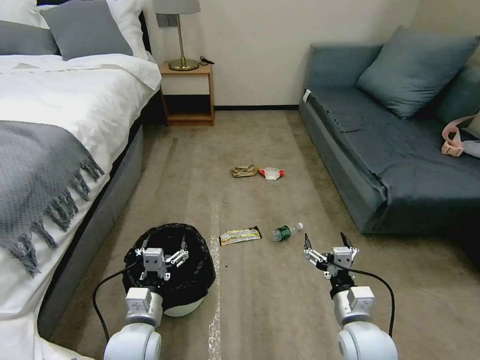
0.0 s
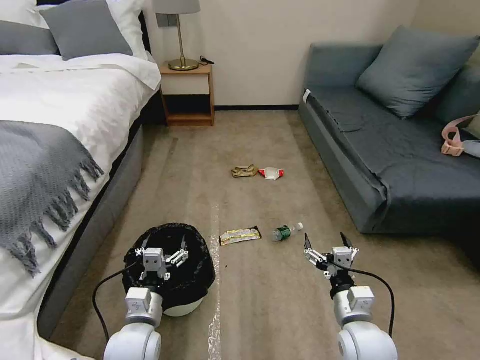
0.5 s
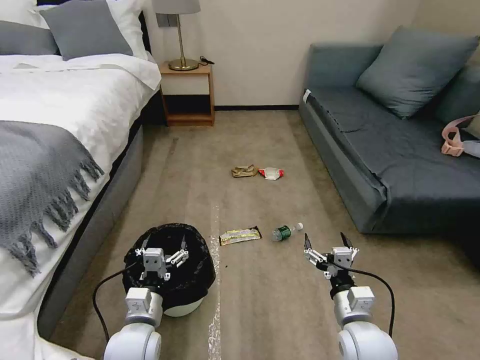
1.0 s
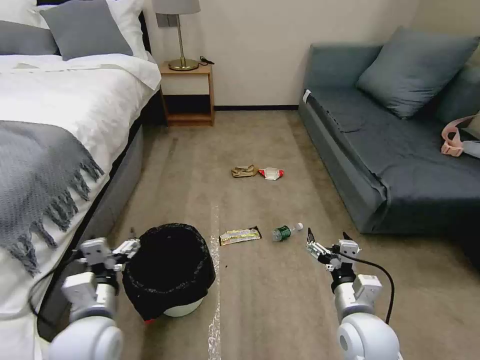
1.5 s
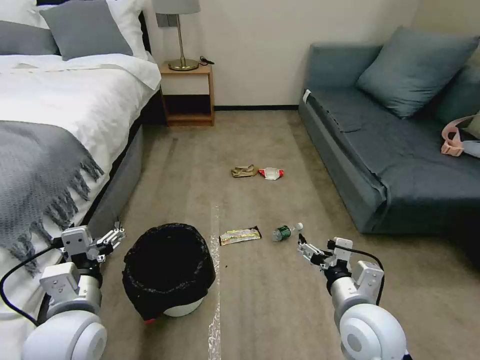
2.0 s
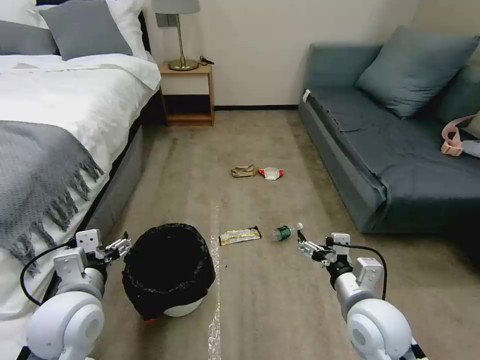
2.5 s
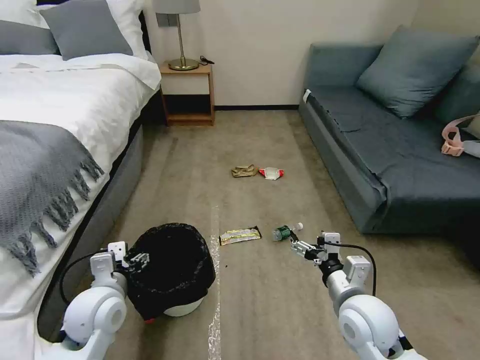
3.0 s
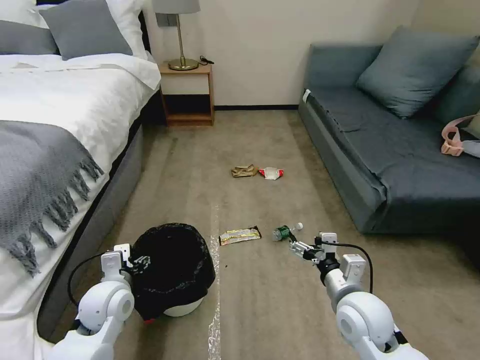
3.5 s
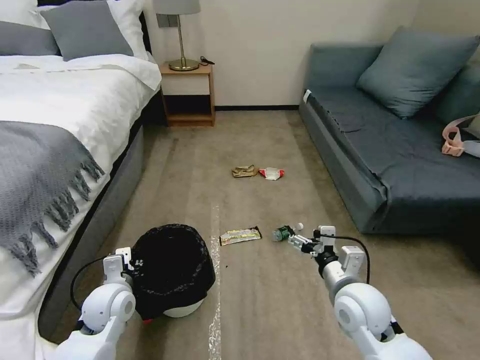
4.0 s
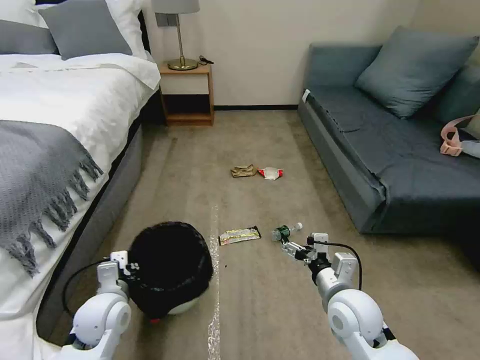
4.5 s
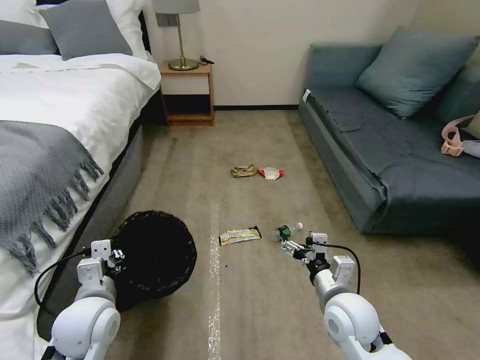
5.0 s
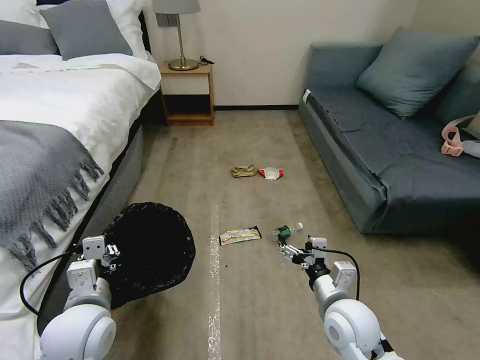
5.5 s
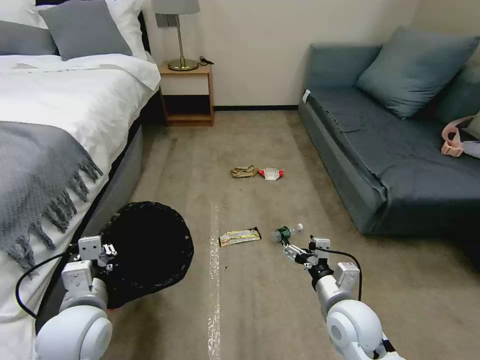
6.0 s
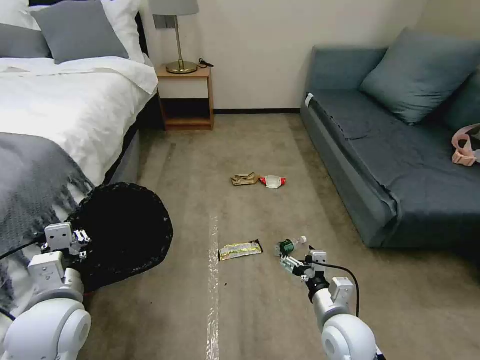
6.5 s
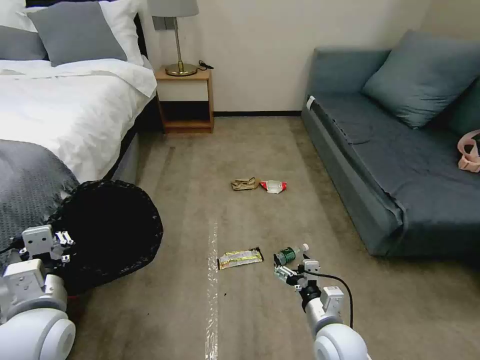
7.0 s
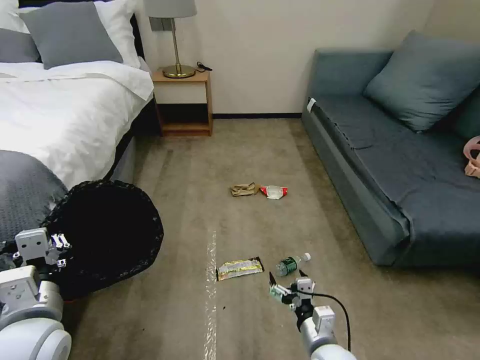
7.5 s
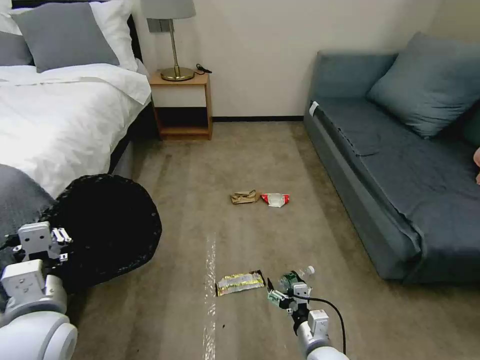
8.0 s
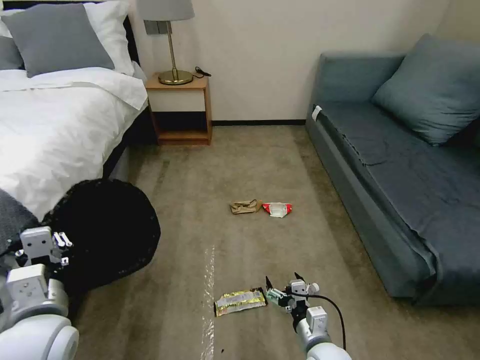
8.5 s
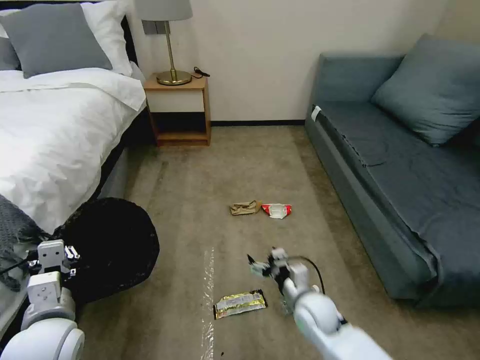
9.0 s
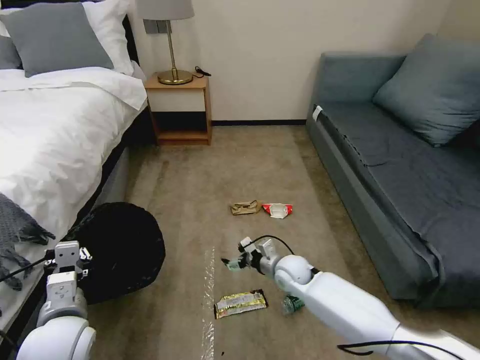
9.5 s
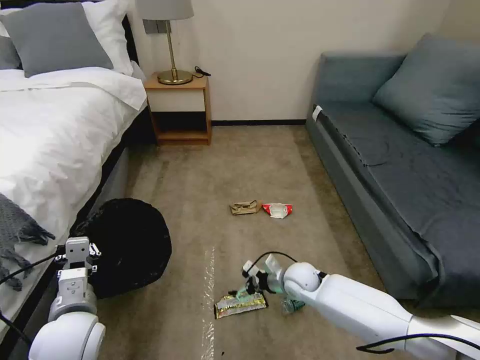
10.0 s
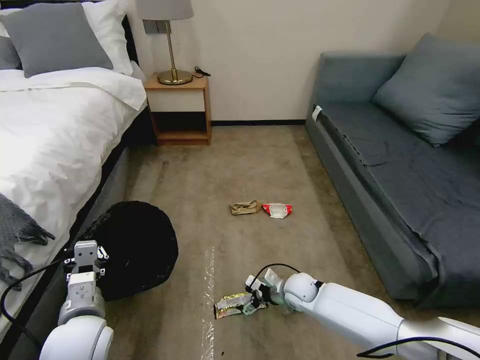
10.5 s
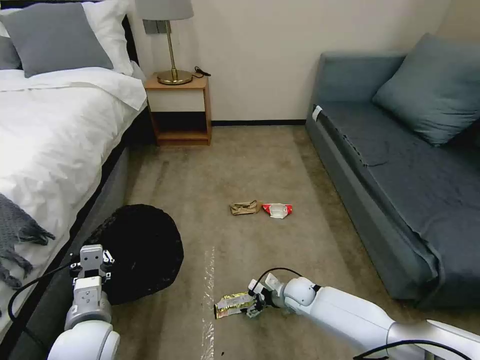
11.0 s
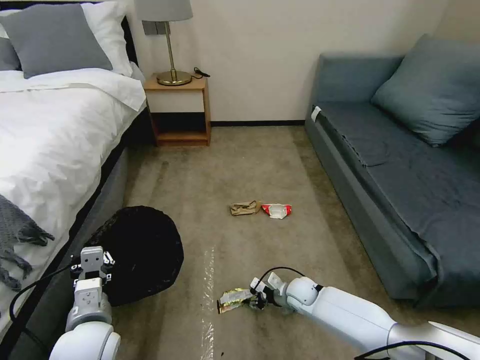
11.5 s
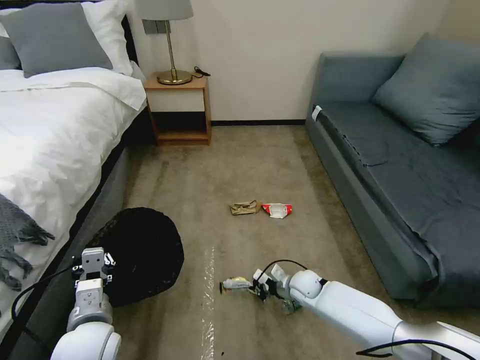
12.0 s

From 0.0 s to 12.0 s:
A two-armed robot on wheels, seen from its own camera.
Task of the whole recording: Pick up the trash bin, then pick up the garbage on the floor and place it into the trash bin.
From 2.0 s to 4.0 s: The left gripper shifts some 15 cm downward and forward, and closes its fingers; the right gripper moves forward, some 5 cm.
From 4.0 s to 6.0 s: The left gripper goes approximately 10 cm upward and backward.
From 6.0 s to 8.0 s: The left gripper goes roughly 5 cm upward. The right gripper heads downward and backward, covering roughly 10 cm.
From 8.0 s to 10.0 s: The left gripper heads downward, covering some 5 cm. The right gripper shifts some 20 cm forward.
From 10.0 s to 12.0 s: The right gripper heads downward, covering some 5 cm, and closes.

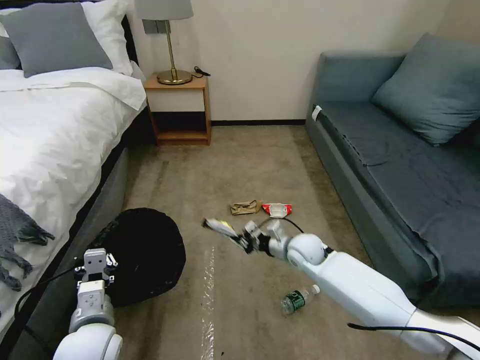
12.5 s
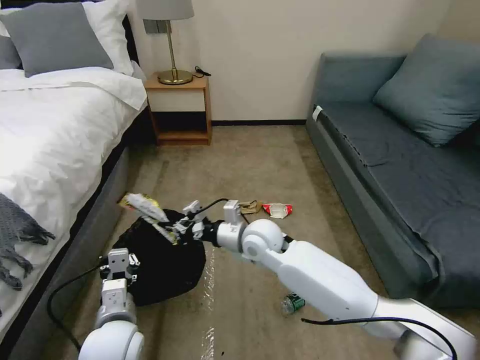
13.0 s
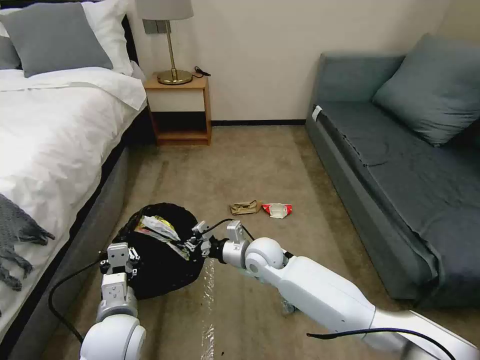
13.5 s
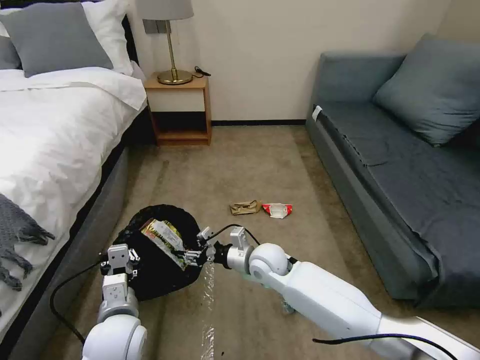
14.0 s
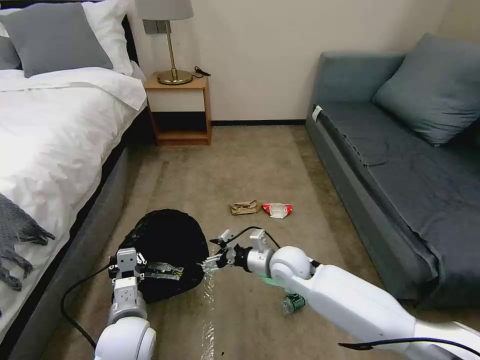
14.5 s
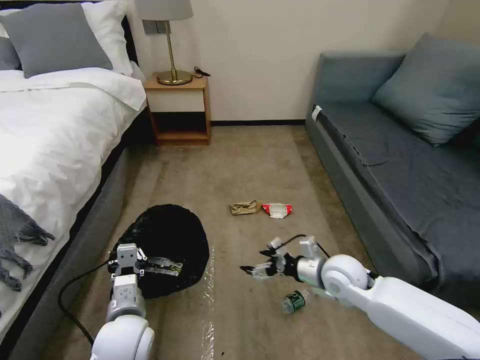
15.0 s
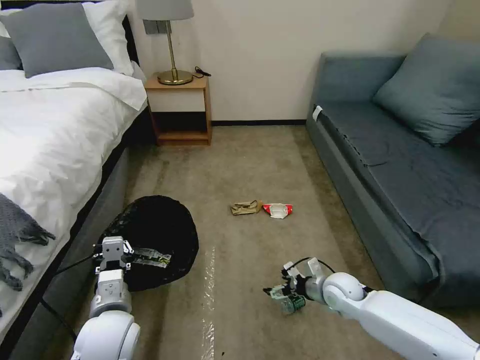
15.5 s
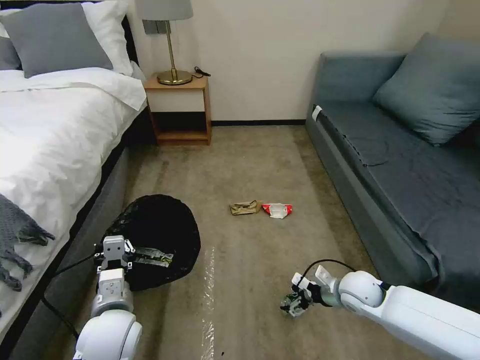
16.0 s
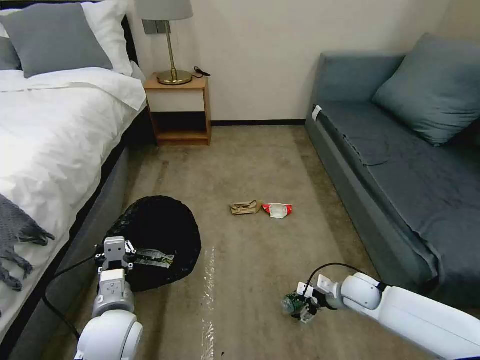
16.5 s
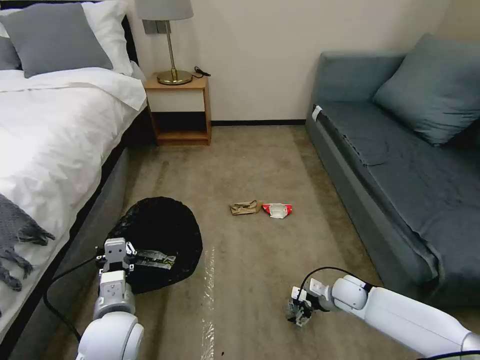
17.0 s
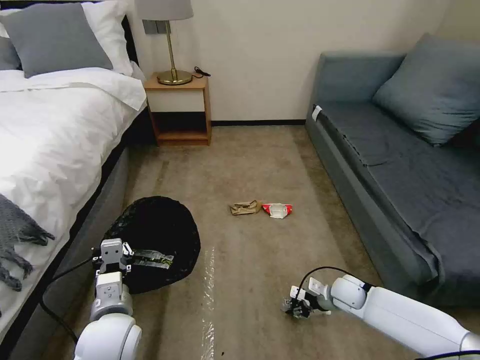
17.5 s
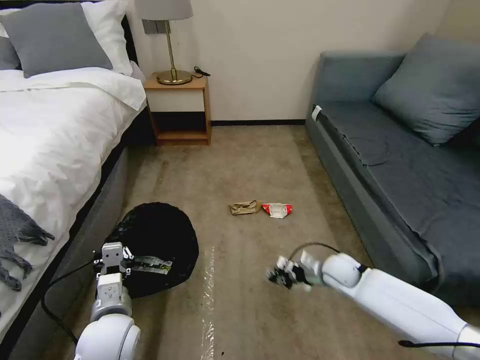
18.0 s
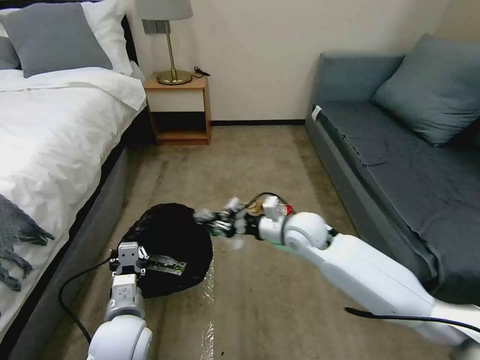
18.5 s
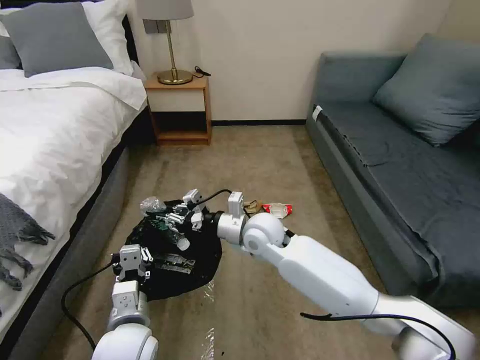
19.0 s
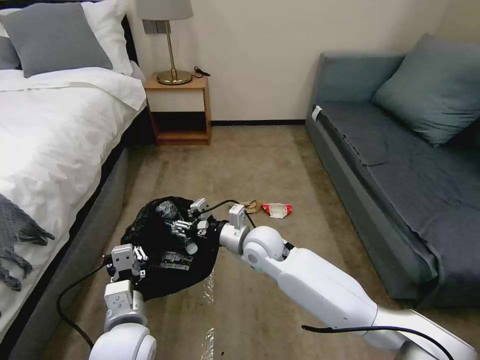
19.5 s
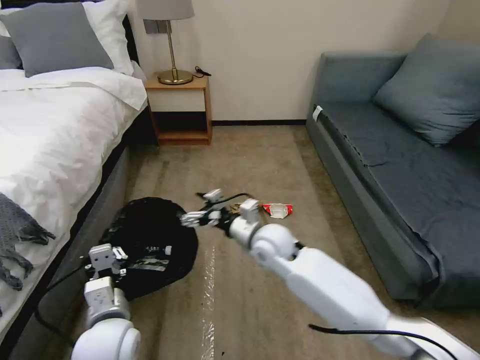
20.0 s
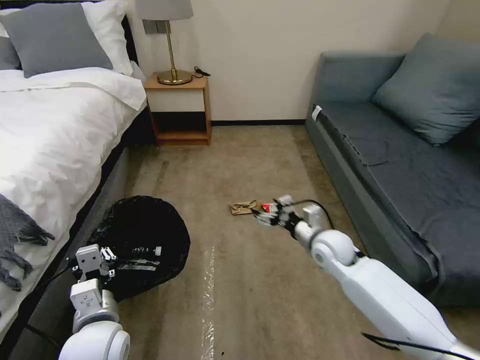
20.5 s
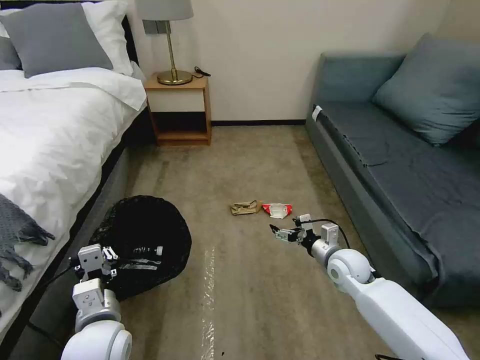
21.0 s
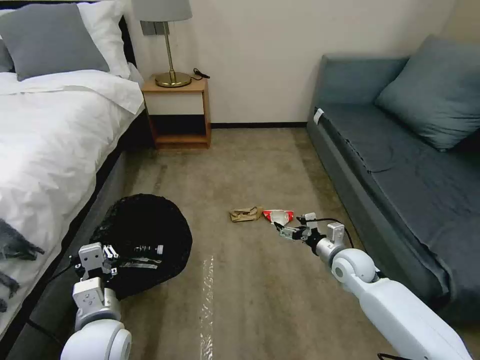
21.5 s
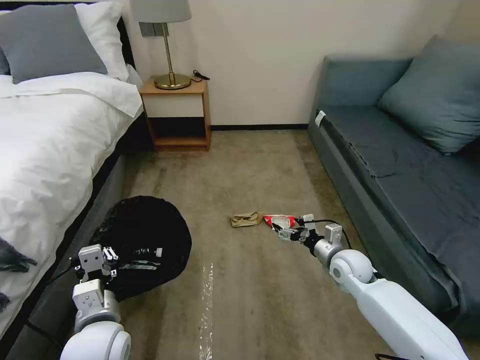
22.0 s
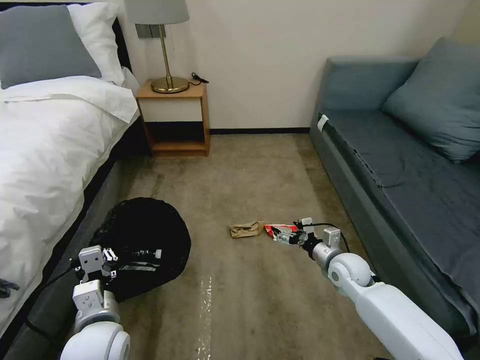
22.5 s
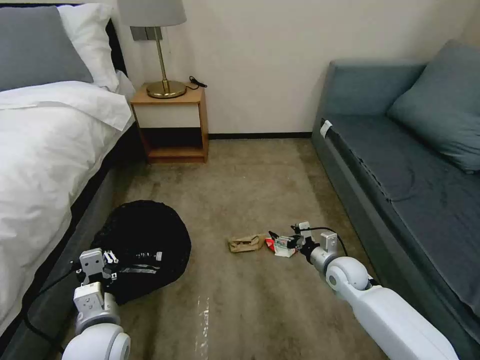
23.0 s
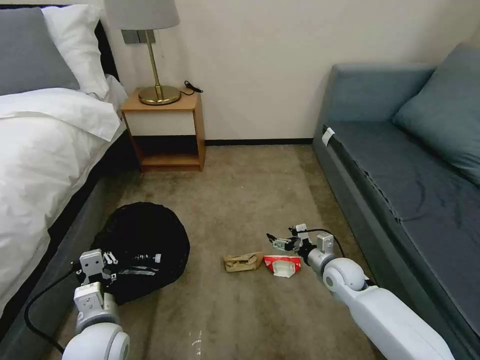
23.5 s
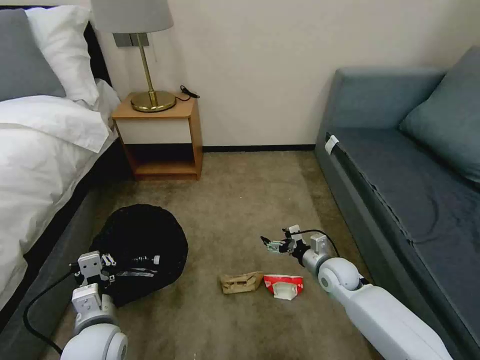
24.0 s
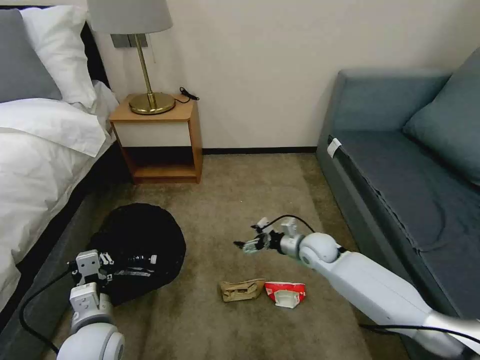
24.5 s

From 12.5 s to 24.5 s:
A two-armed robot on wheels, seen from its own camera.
Task of the whole recording: Pick up the trash bin, then pick up the garbage on the floor and place it into the trash bin.
From 12.5 s to 14.5 s: The left gripper moves to the right, approximately 5 cm; the right gripper is displaced to the left and backward by approximately 10 cm, and opens its fingers.
From 14.5 s to 16.5 s: The right gripper shifts some 25 cm to the right and downward.
From 16.5 s to 18.5 s: The right gripper travels upward, to the left and forward by approximately 25 cm, and closes.
From 18.5 s to 20.5 s: The right gripper moves downward, about 5 cm, moves some 10 cm to the left and comes back, and opens its fingers.
From 20.5 s to 22.5 s: The right gripper moves downward and to the right, approximately 10 cm.
From 22.5 s to 24.5 s: The right gripper changes place by roughly 5 cm.

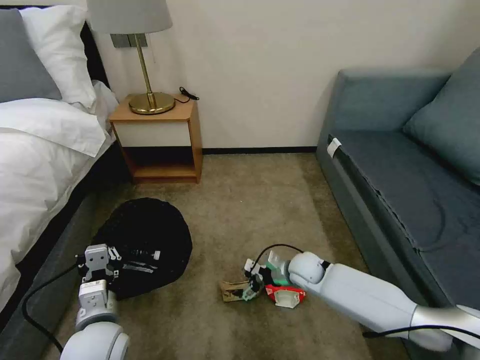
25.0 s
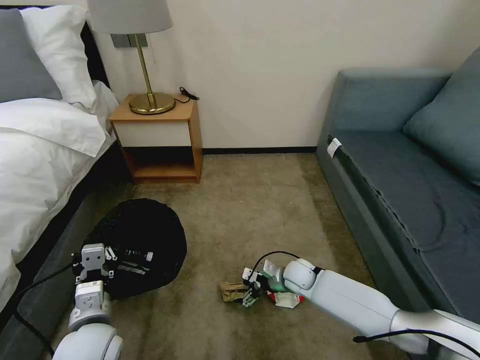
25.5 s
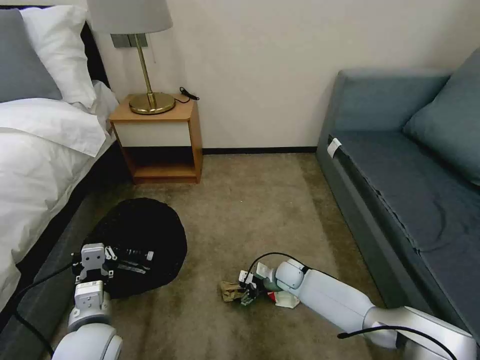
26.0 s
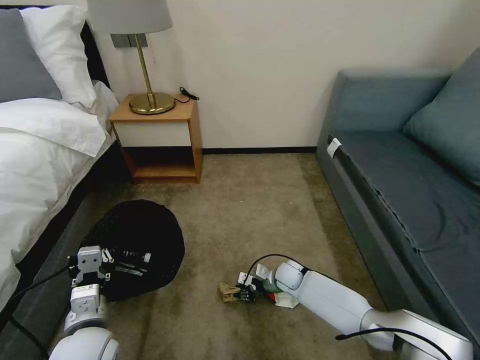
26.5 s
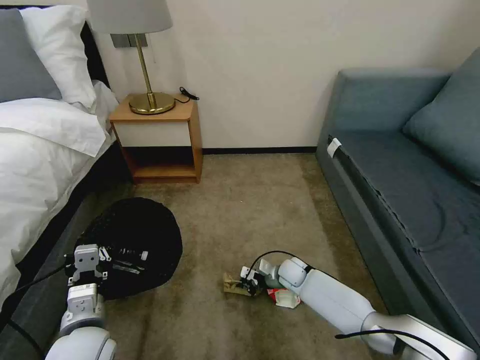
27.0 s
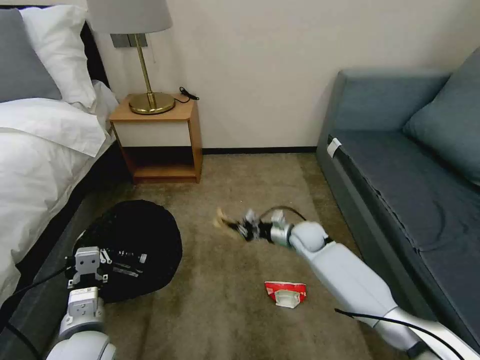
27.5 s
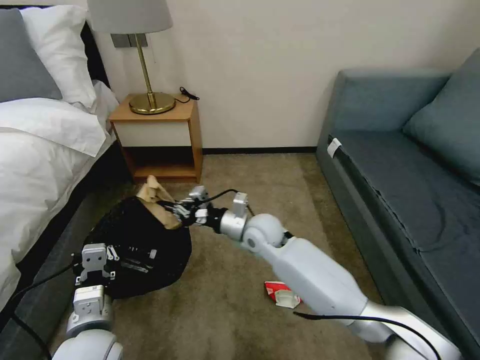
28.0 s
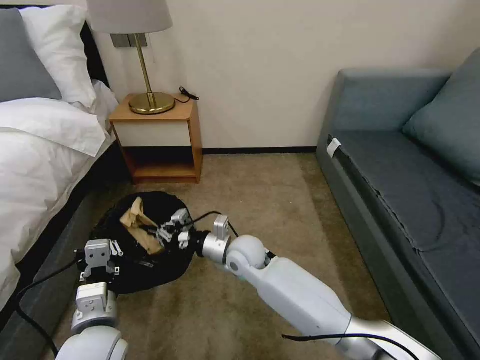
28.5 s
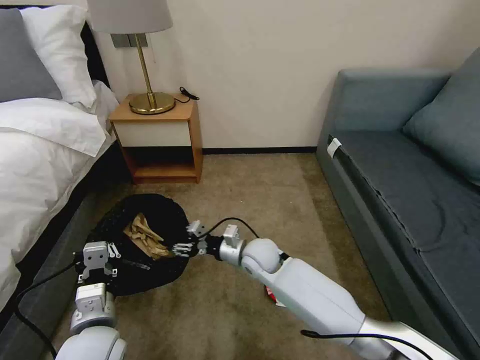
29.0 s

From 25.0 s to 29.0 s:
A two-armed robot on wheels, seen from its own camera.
Task of the whole recording: Pick up the trash bin, then pick up the garbage on the floor and place it into the trash bin.
From 25.0 s to 27.0 s: The right gripper heads downward, covering some 10 cm, and closes its fingers.
From 27.0 s to 29.0 s: The right gripper heads upward and to the left, covering approximately 20 cm, and opens.
